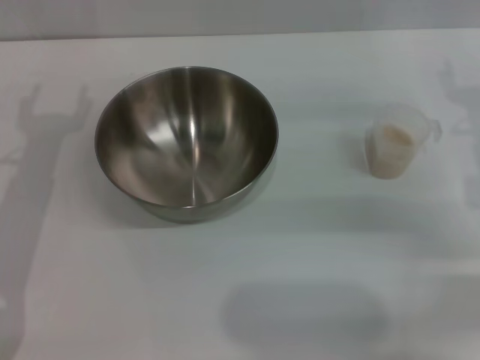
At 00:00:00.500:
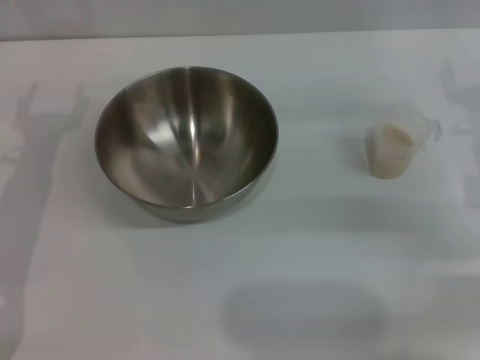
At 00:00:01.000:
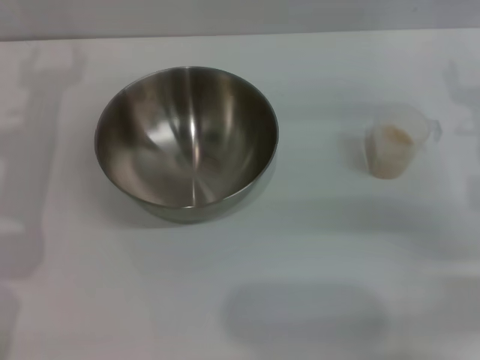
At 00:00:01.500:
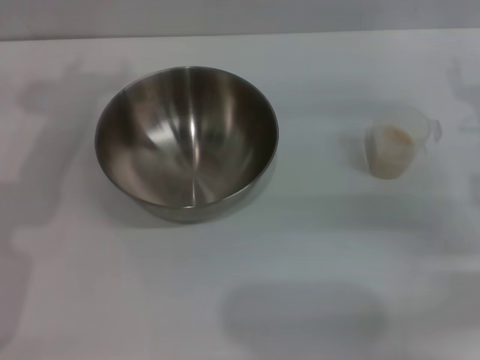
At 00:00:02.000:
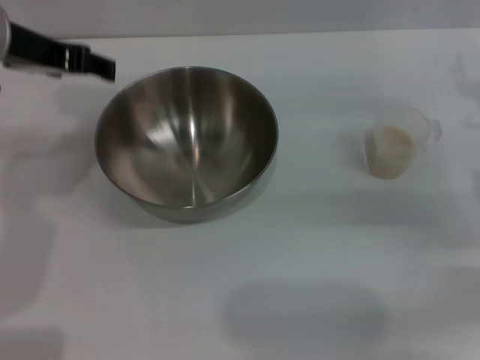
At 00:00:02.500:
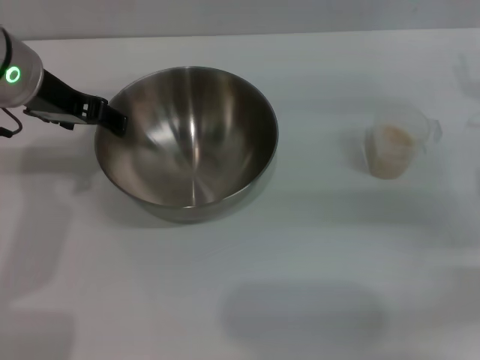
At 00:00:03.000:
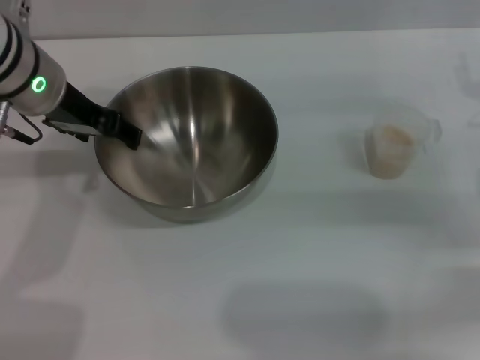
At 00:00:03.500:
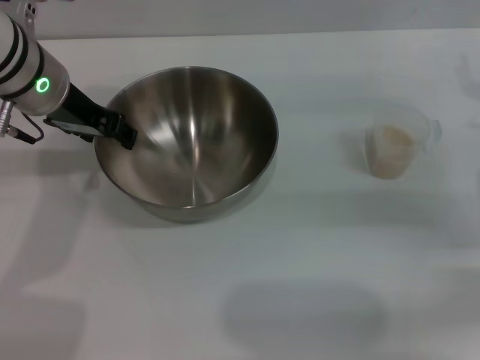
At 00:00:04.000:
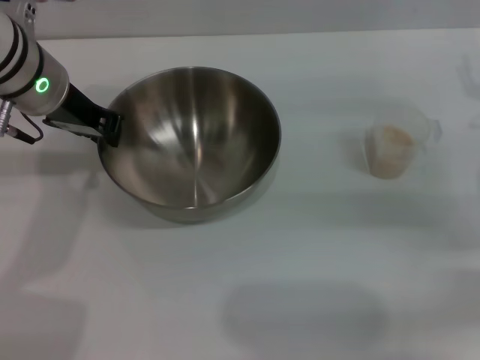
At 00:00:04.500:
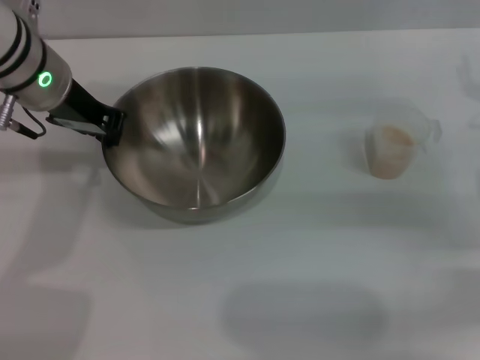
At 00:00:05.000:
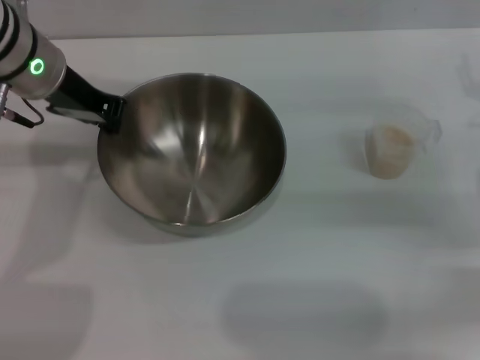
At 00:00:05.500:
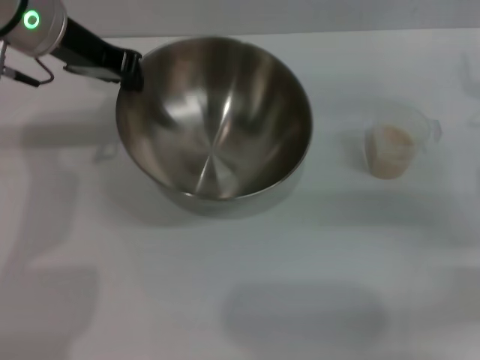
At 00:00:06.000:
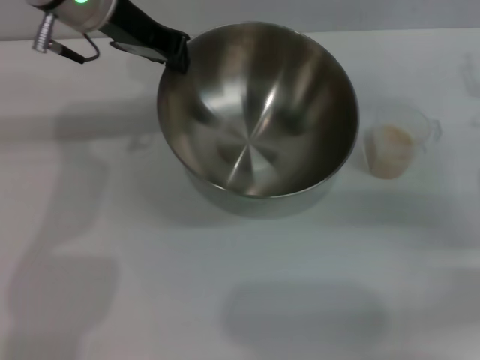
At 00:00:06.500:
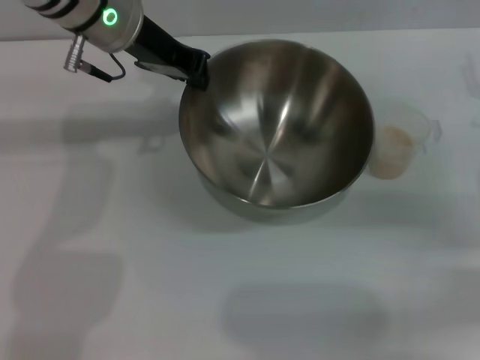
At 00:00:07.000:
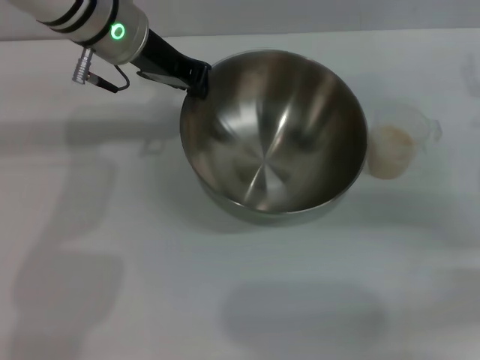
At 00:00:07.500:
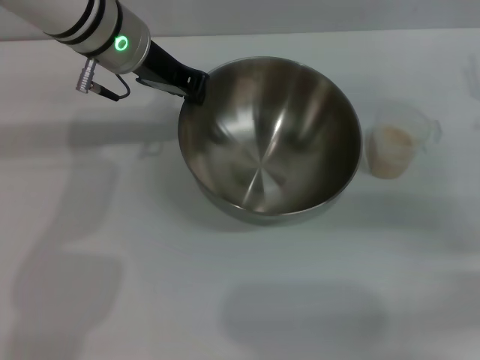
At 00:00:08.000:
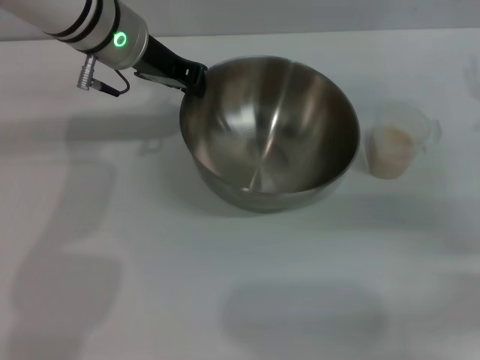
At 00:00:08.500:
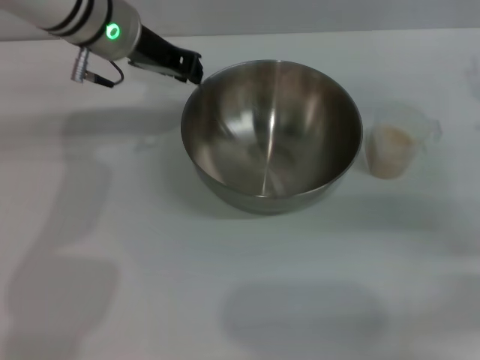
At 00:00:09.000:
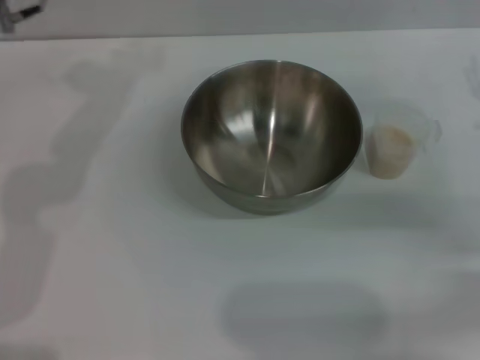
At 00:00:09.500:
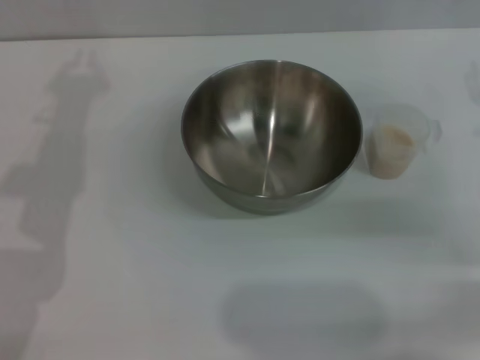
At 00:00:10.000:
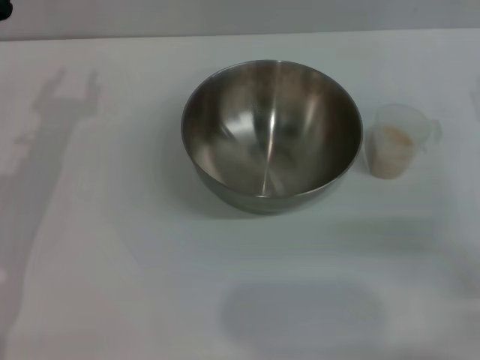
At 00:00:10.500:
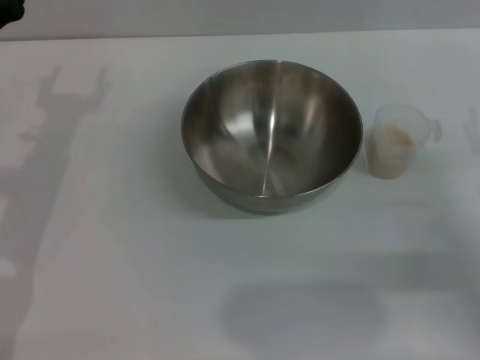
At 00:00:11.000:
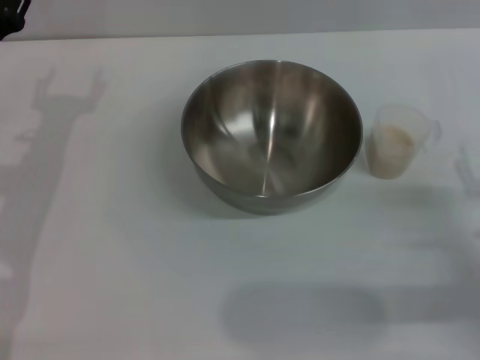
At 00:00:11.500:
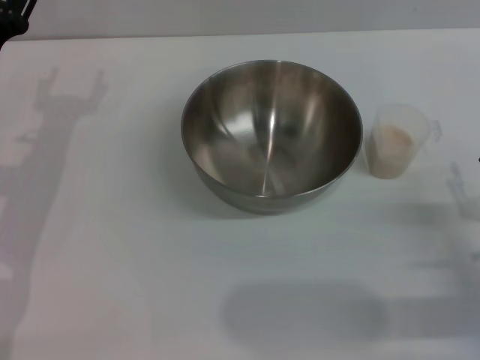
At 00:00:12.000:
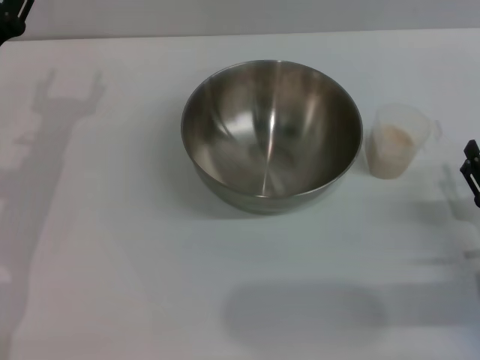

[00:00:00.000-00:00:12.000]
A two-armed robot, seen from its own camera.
Task of the whole recording: Place the bowl in the middle of the table with one hand and pour the rice from the grain cup into it with the other hand.
Step, 00:00:00.000 to 00:00:05.500: Pick up the bowl with the left gripper.
Step, 00:00:06.000 to 00:00:08.500: Place the bowl in the center of view with the left gripper.
00:00:00.000 to 00:00:02.000: The left gripper is displaced upward by roughly 15 cm.
00:00:02.000 to 00:00:04.000: The left gripper travels downward by about 5 cm, and closes up.
00:00:04.000 to 00:00:06.000: The left gripper heads upward, covering roughly 5 cm.
00:00:06.000 to 00:00:08.000: The left gripper heads downward, covering about 5 cm.
00:00:08.000 to 00:00:10.000: The left gripper is displaced to the left, backward and downward by about 20 cm, and opens up.
00:00:10.000 to 00:00:12.000: The right gripper shifts some 15 cm backward and downward.

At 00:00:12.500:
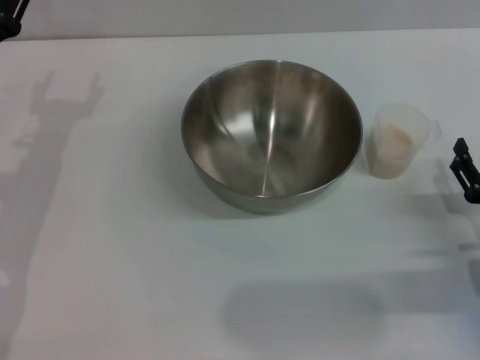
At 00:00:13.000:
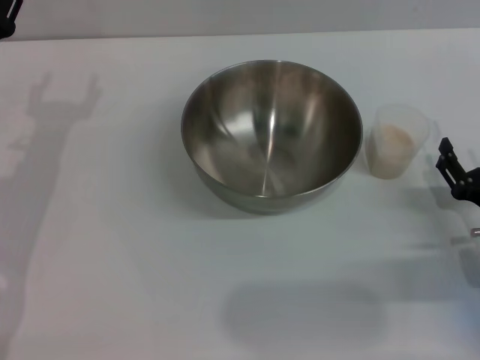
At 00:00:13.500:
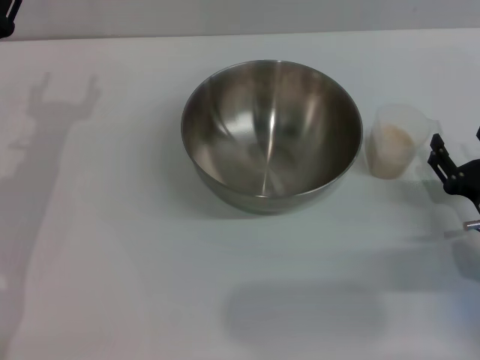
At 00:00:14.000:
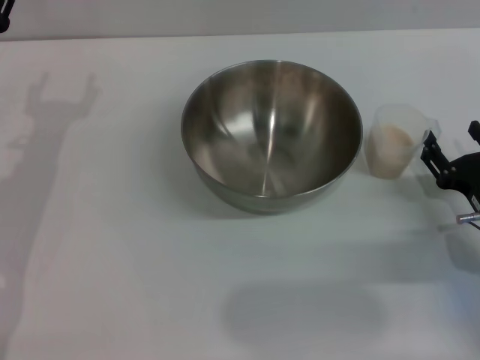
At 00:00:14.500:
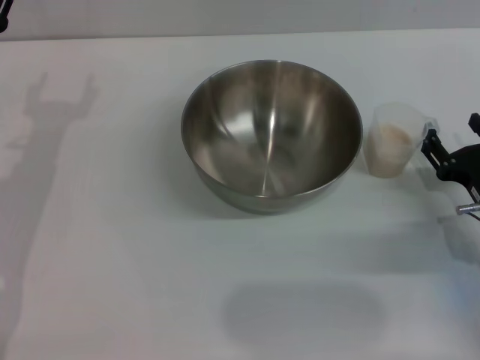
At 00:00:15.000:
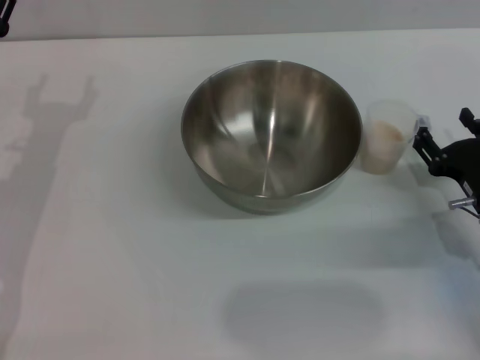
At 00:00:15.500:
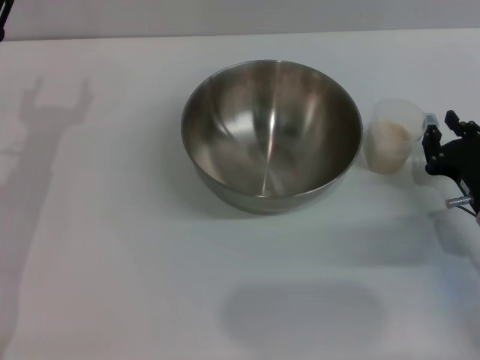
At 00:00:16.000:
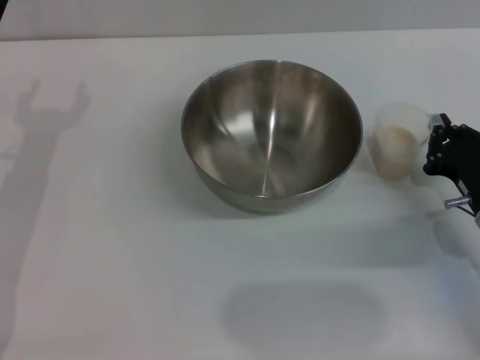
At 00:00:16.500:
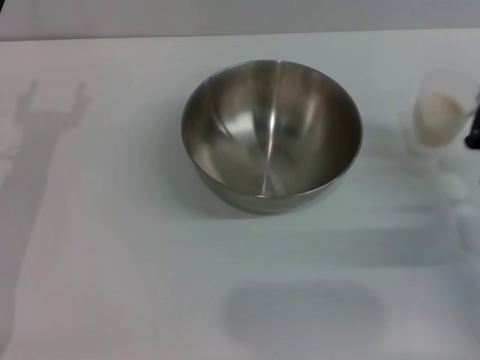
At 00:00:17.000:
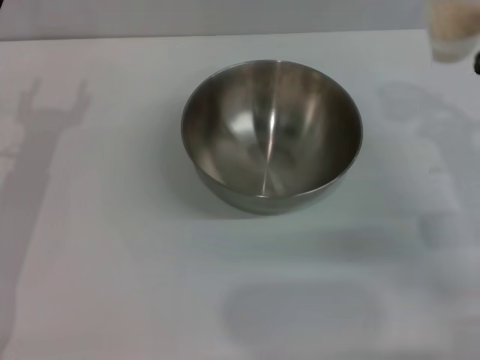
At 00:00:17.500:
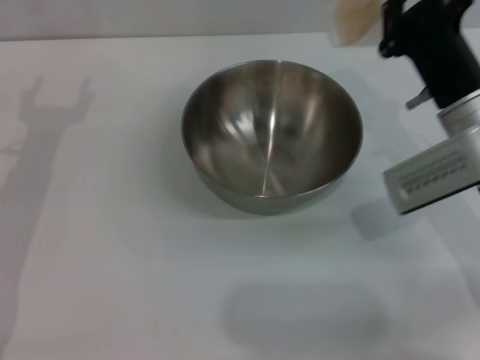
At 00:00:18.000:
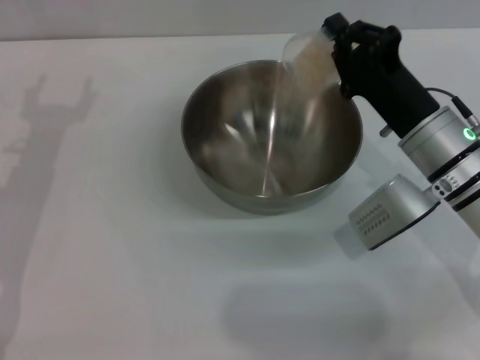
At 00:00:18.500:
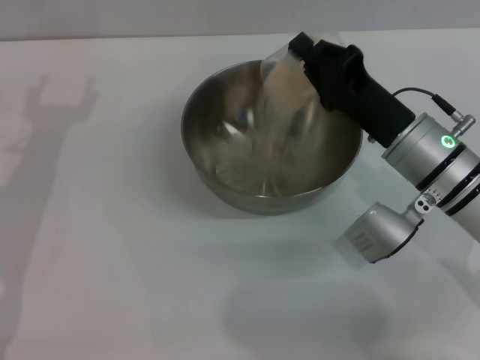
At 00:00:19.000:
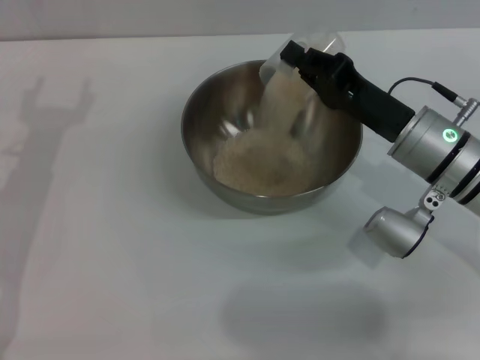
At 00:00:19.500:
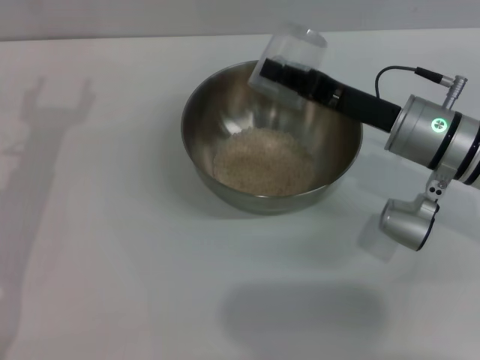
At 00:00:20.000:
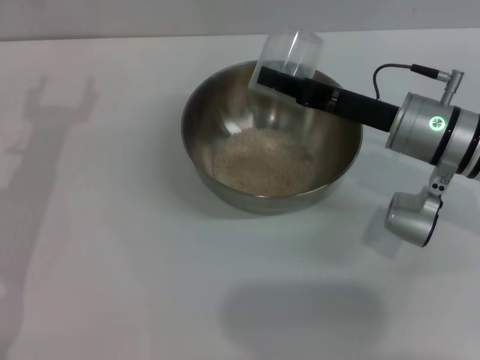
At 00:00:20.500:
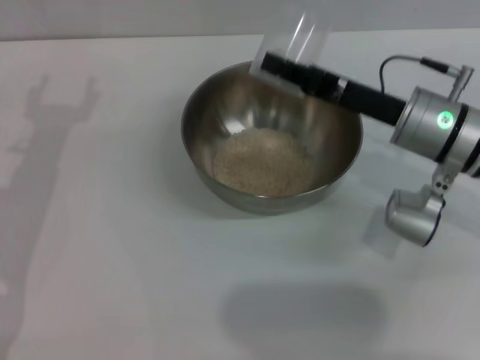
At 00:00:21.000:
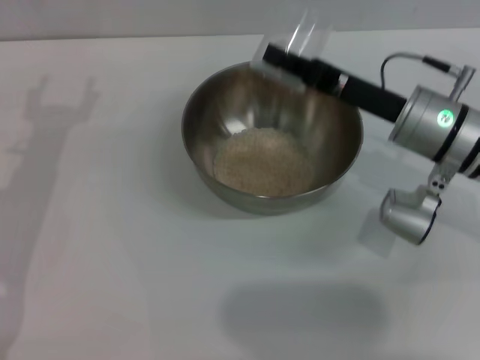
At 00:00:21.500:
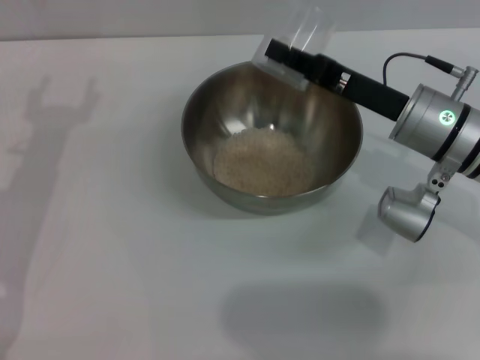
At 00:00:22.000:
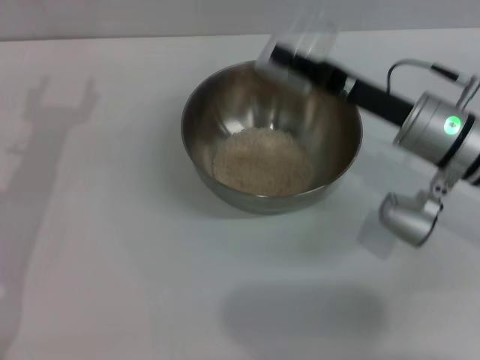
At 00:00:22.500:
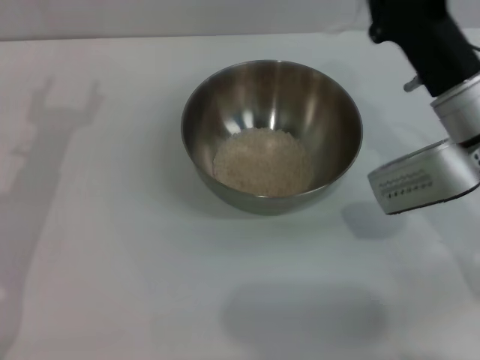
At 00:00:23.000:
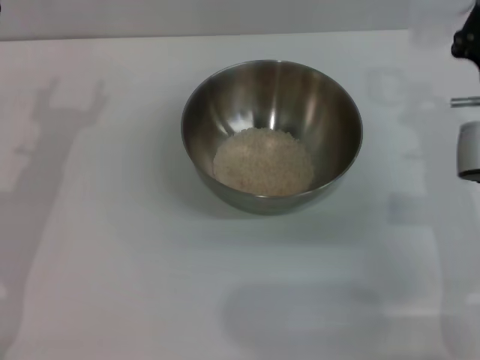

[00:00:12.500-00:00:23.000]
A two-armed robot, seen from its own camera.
Task of the whole recording: Place the bowl in the middle of the table with one hand and pour the rice from the grain cup into it with the other hand.
Step, 00:00:12.500 to 00:00:16.500: Pick up the cup with rice in it with the right gripper.
Step, 00:00:17.000 to 00:00:22.000: Pour the rice from the cup into the bowl with the right gripper.
00:00:12.500 to 00:00:14.500: The grippers make only small movements.
00:00:14.500 to 00:00:16.500: The right gripper closes its fingers.
00:00:16.500 to 00:00:19.000: The right gripper goes roughly 15 cm to the left, forward and upward.
00:00:21.000 to 00:00:23.000: The right gripper ends up roughly 5 cm from where it was.

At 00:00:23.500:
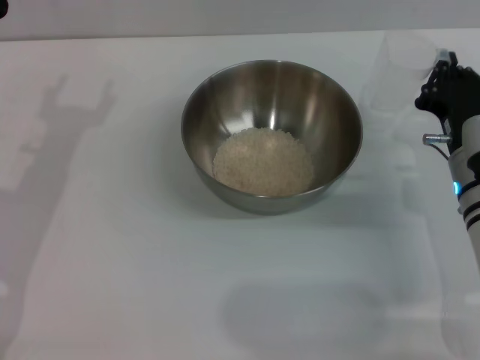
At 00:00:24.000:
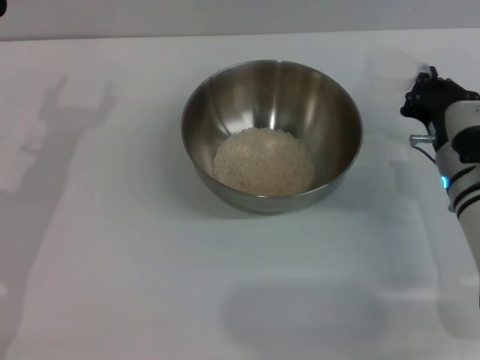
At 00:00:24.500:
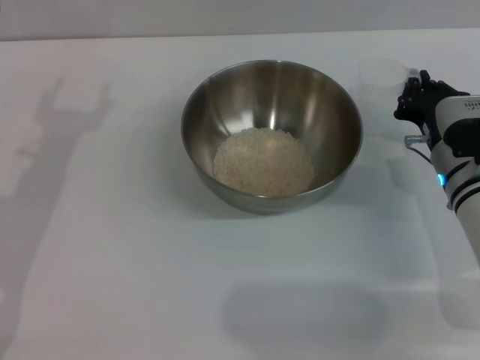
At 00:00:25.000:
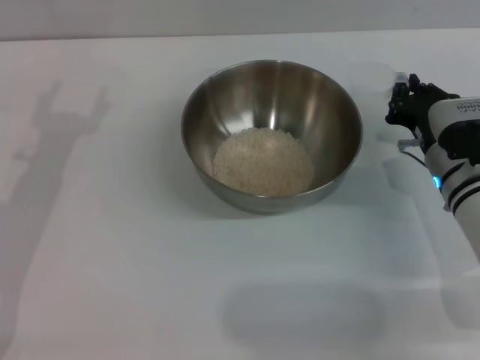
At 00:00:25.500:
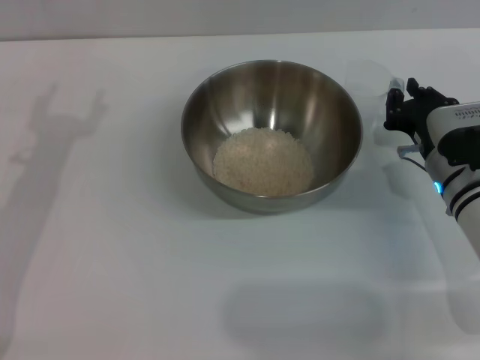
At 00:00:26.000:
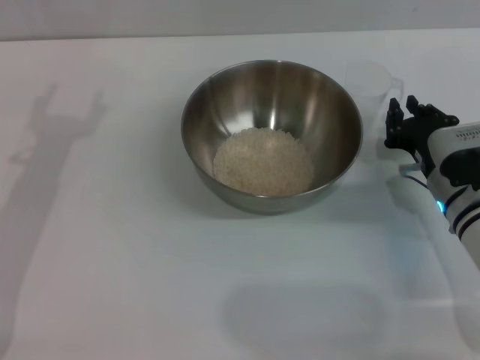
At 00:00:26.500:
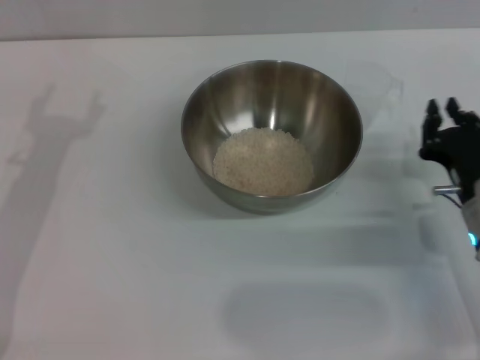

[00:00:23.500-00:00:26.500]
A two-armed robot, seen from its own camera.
Task of the whole recording: Place the bowl in the middle of the table with one hand and pour the rice from the grain cup into it with the other hand.
Step, 00:00:23.500 to 00:00:26.000: Place the cup on the table with the right gripper.
00:00:23.500 to 00:00:25.000: The grippers move only a little.
00:00:25.000 to 00:00:26.500: The right gripper goes approximately 5 cm backward.
